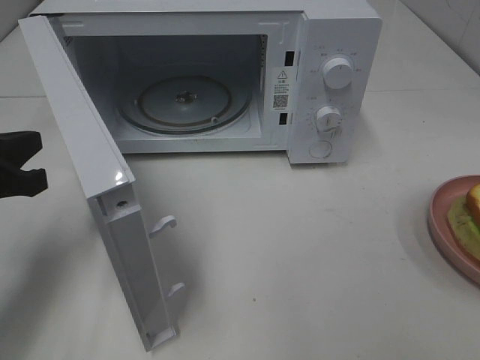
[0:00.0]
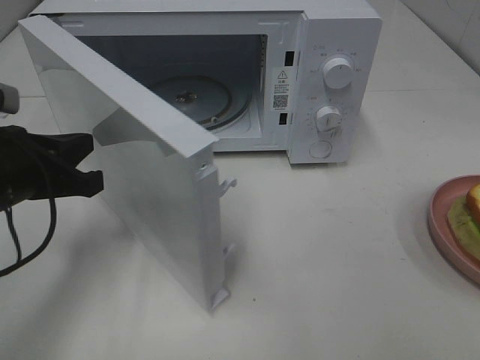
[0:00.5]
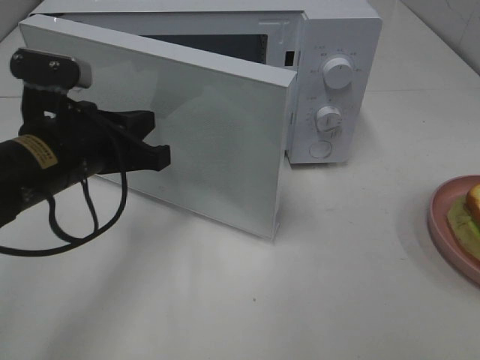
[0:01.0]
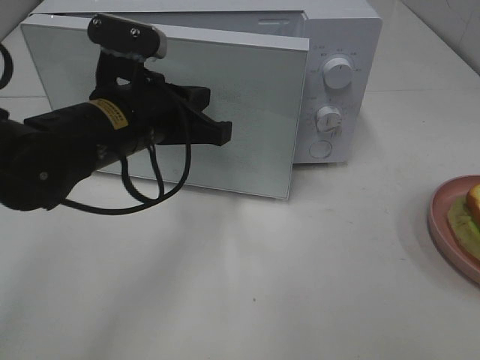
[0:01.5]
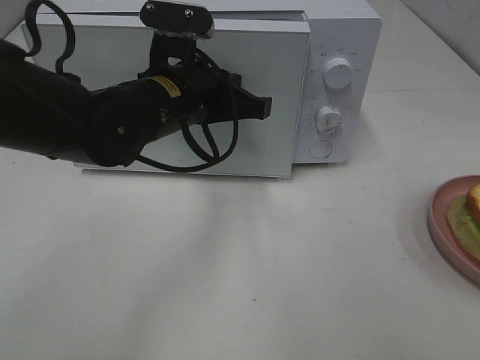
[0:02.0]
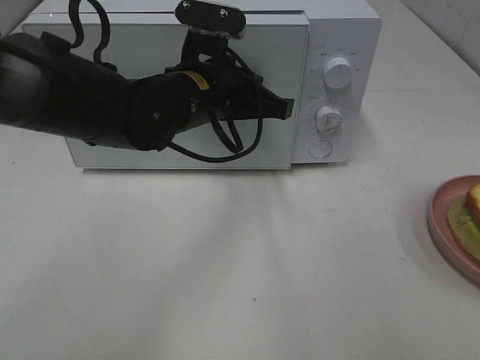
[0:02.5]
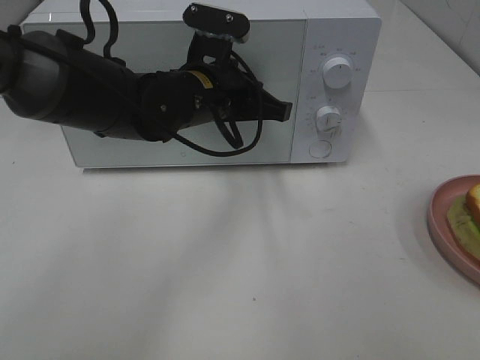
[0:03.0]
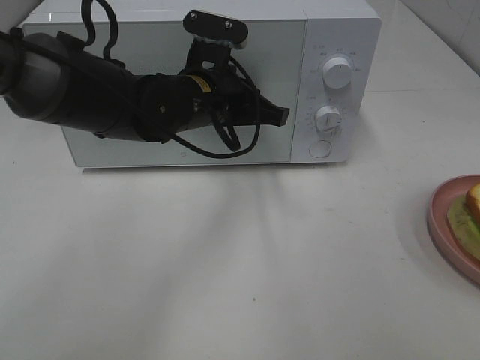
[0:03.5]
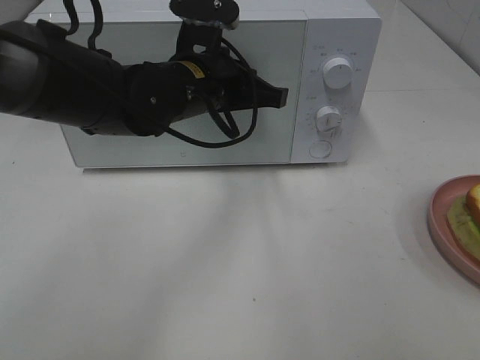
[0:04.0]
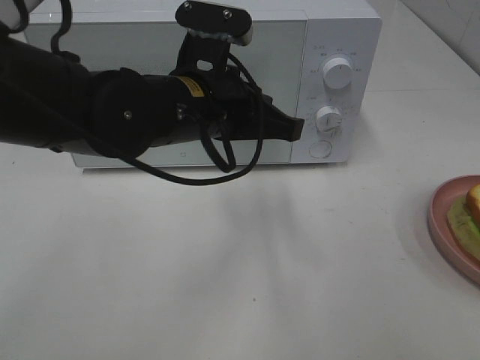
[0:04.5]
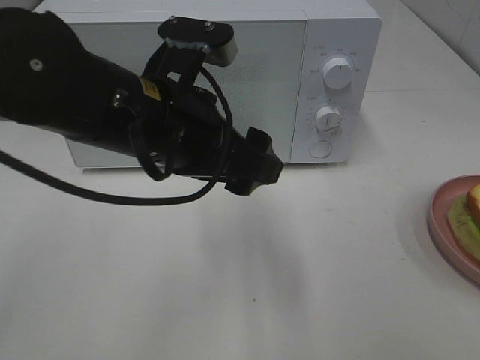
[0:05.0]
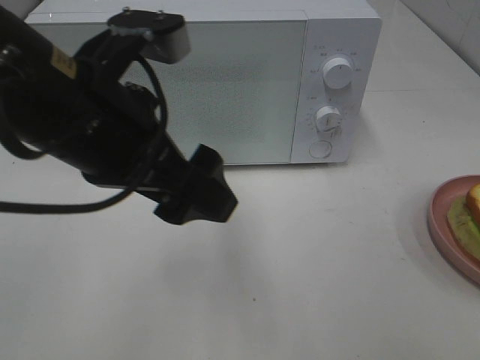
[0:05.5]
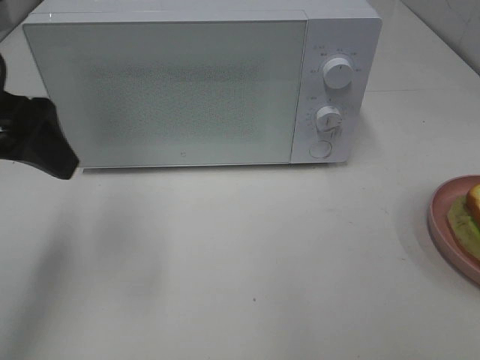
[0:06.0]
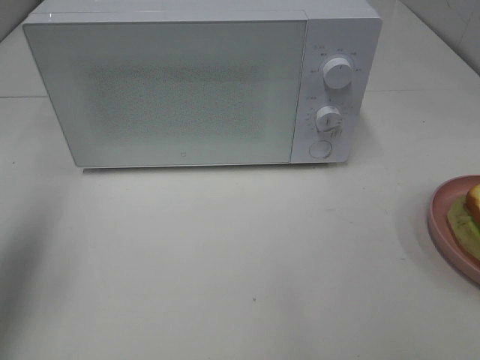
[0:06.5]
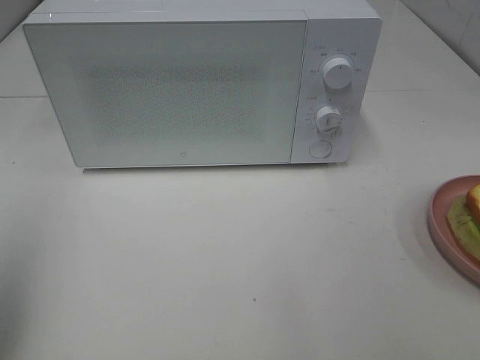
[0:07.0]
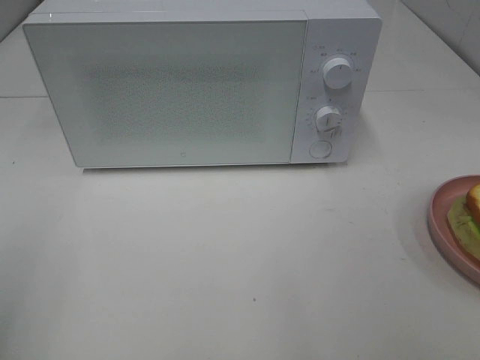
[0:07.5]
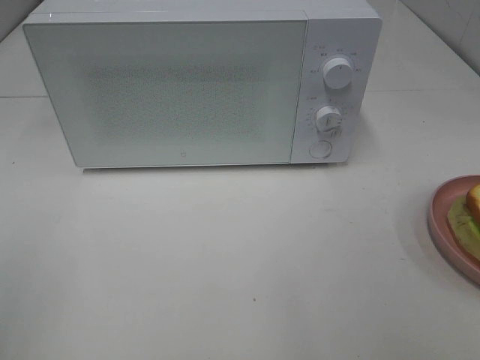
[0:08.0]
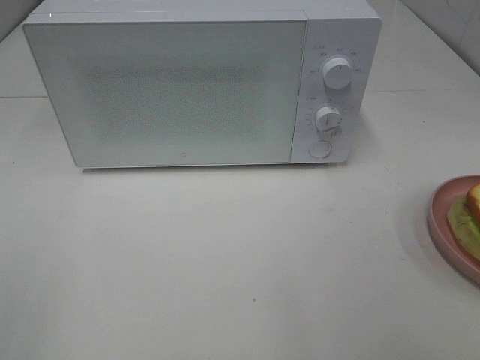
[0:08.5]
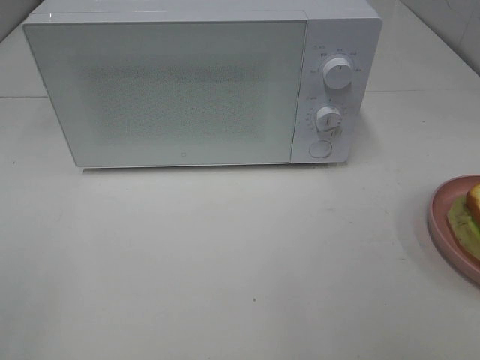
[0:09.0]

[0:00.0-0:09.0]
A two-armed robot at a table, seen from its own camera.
Task of the whole recording: Heat Sandwich.
Step, 0:00.0 to 0:04.5: Left hand: close the microwave door.
0:00.0 to 0:02.0: The left gripper moves to the right and forward, about 25 cm.
0:02.0 to 0:04.5: The grippers stay close to where they were, moving slightly.
0:04.5 to 0:07.0: The left gripper moves to the left and backward, some 35 cm, and opens up.
0:07.0 to 0:09.0: The left gripper is displaced backward by roughly 15 cm.
